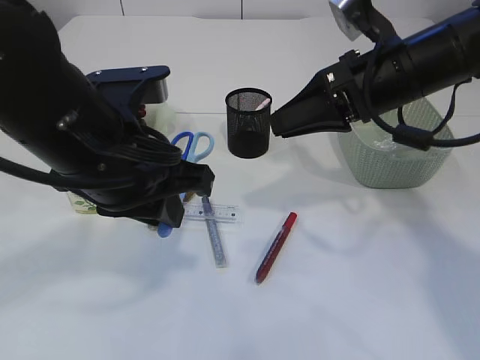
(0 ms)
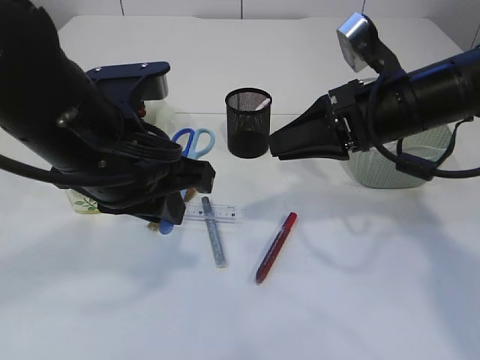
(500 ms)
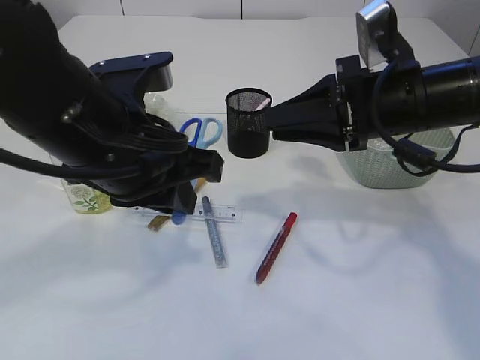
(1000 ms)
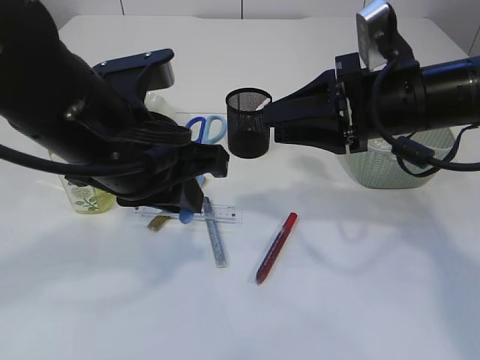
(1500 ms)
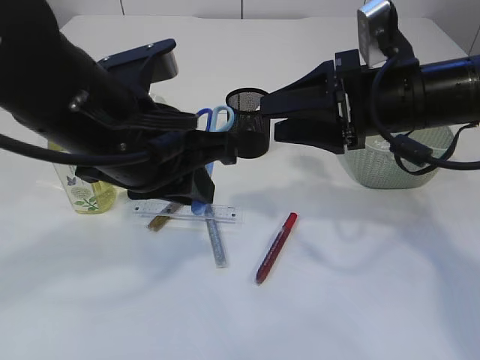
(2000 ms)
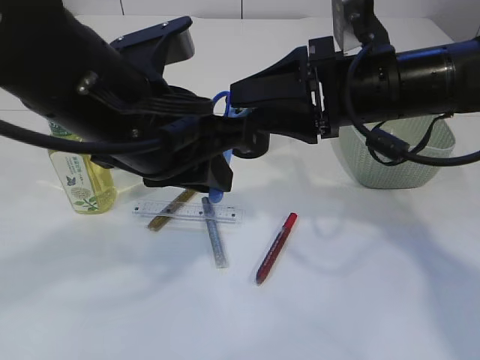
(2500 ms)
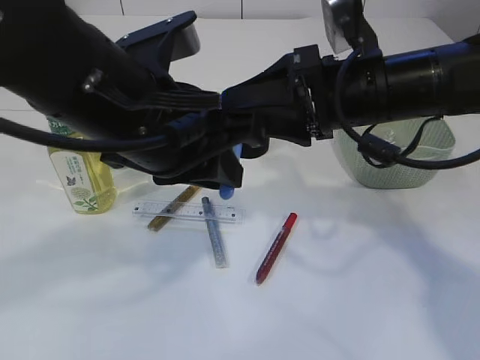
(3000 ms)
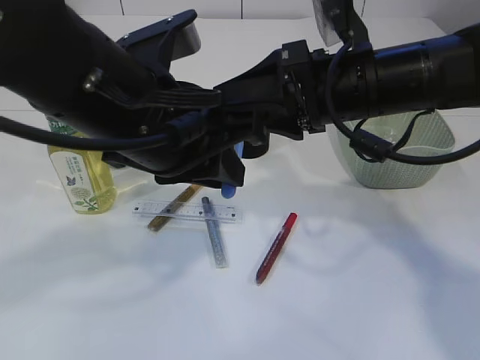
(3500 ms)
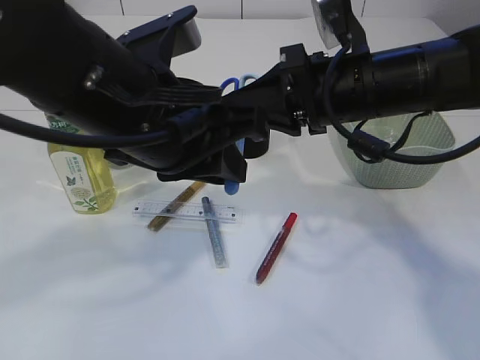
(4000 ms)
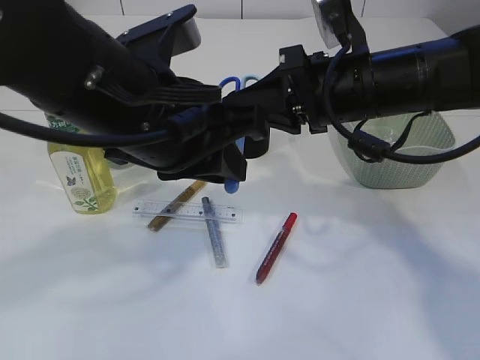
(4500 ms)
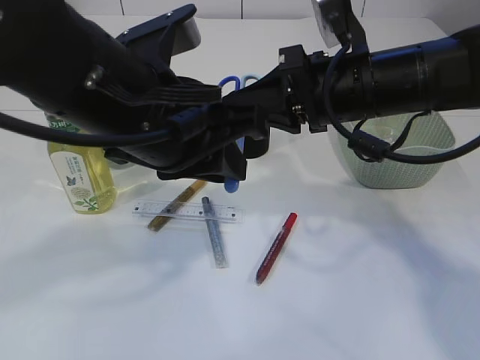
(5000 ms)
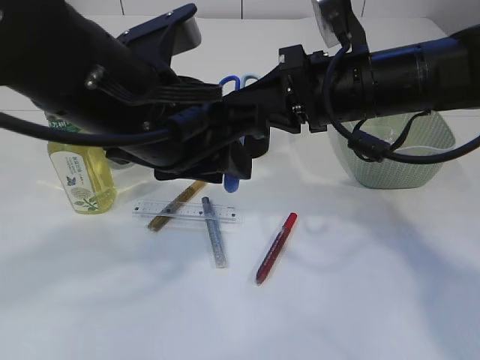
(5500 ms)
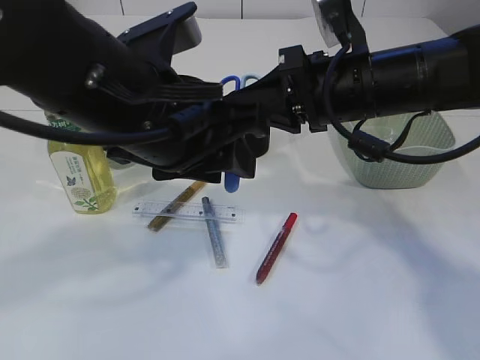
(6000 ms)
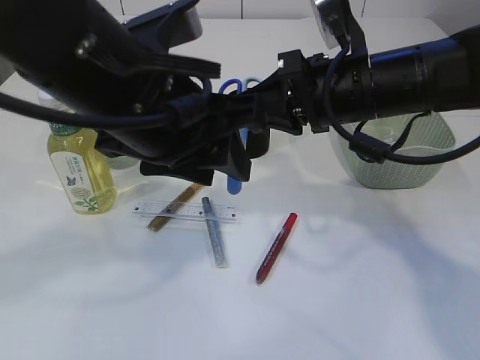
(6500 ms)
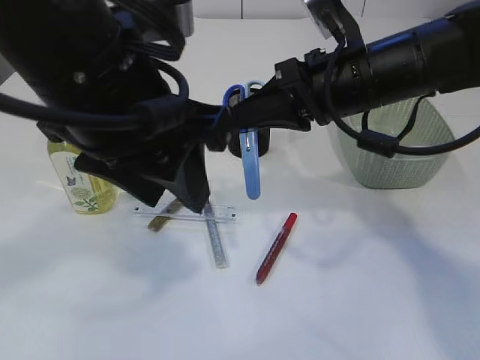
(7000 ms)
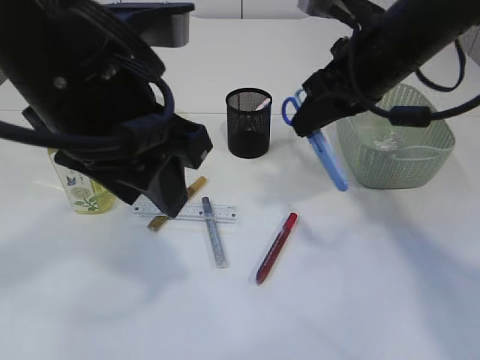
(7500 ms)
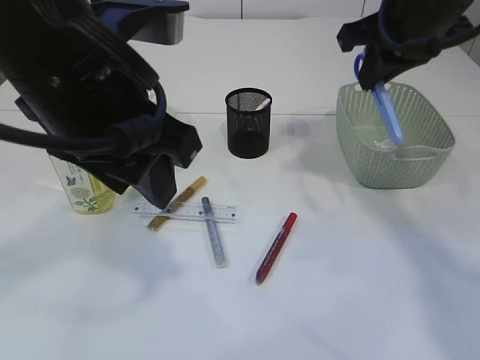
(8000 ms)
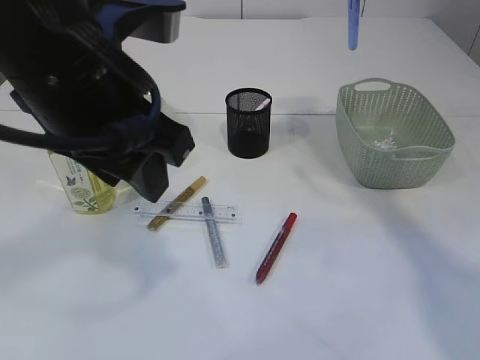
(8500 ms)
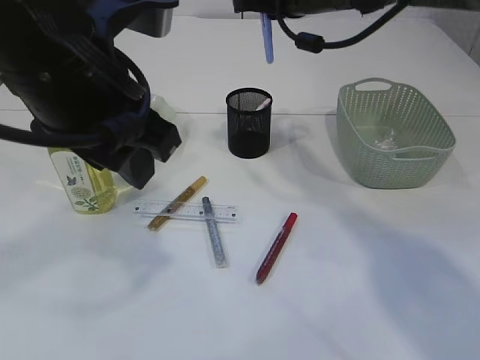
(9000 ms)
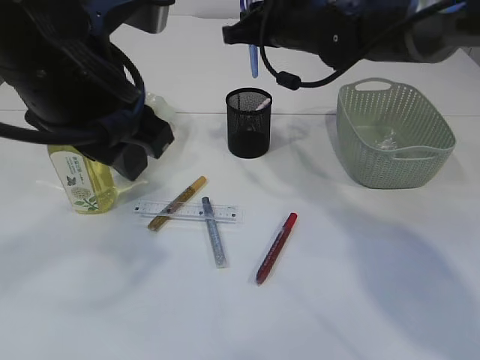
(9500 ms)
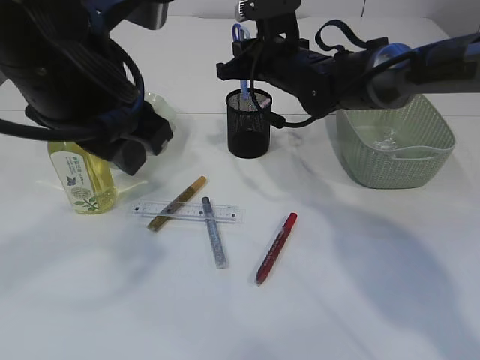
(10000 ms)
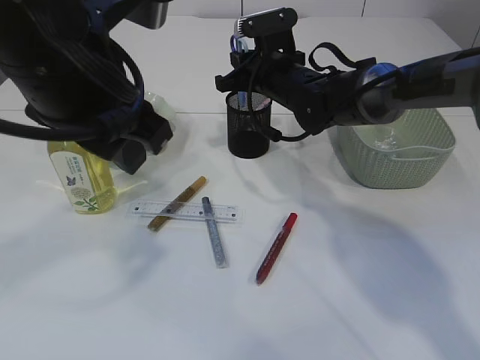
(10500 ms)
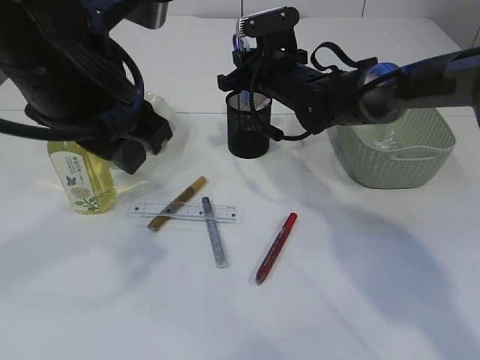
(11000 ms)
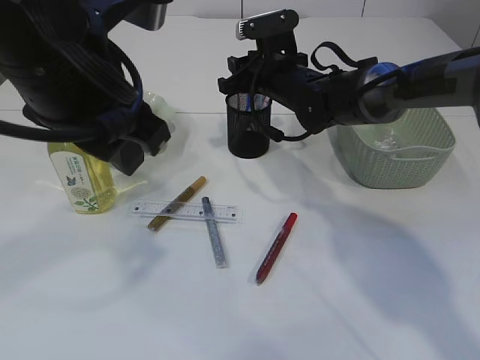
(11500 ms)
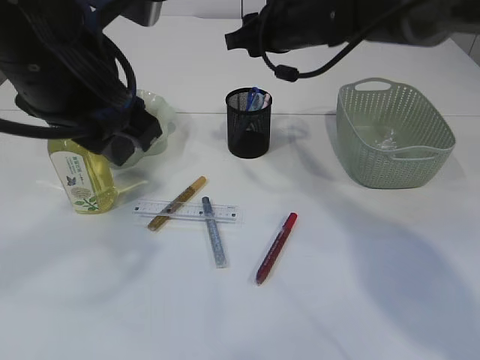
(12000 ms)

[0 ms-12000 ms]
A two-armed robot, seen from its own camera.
Step, 0 ms to 7000 ms: Hand over the blue scissors.
Step, 7500 ms to 11500 ms: Place the blue scissors into the pen holder.
0 ms to 2000 ms: The right gripper opens up.
2000 ms to 4000 ms: The right gripper closes up.
4000 ms to 6000 ms: Both grippers stay put.
6000 ms to 8000 ms: The left gripper shifts by about 5 cm, while the right gripper travels upward and to the right by approximately 10 cm.
8000 ms to 10000 ms: The right gripper is displaced forward, downward and to the left by approximately 20 cm.
10000 ms to 12000 ms: The right gripper moves upward, about 5 cm, and opens its fingers.

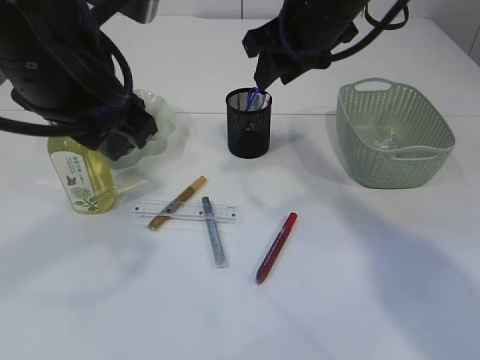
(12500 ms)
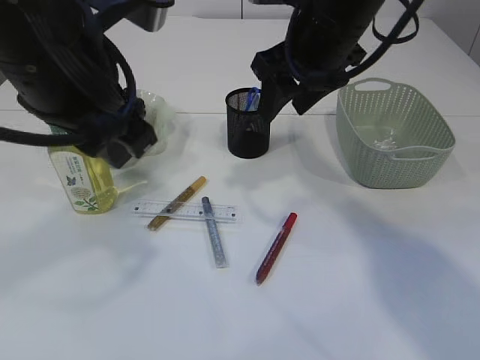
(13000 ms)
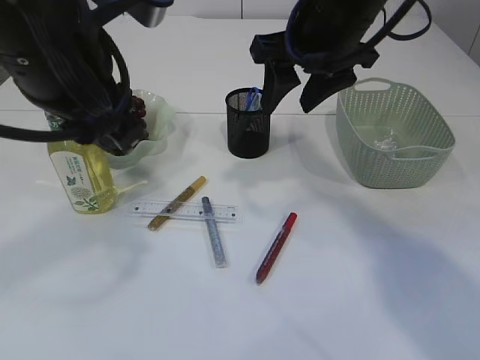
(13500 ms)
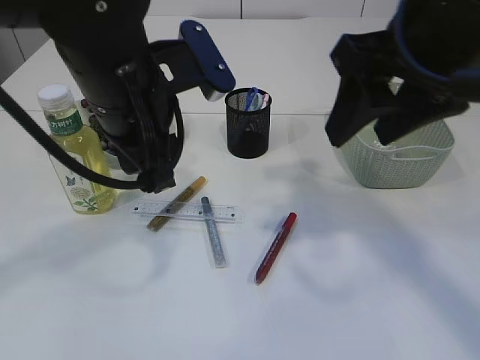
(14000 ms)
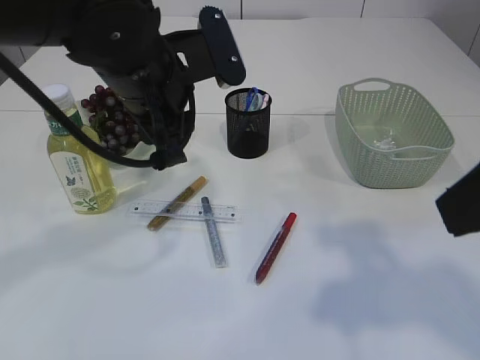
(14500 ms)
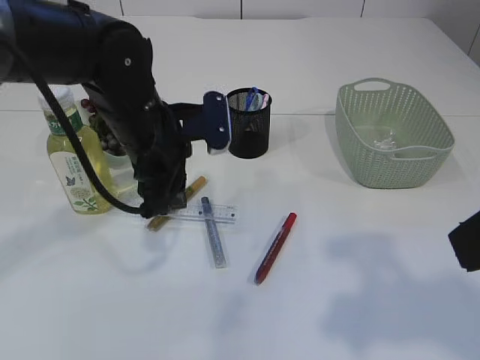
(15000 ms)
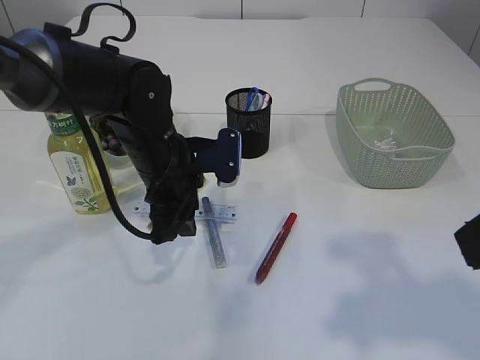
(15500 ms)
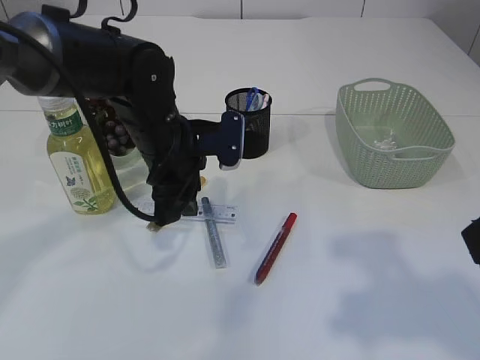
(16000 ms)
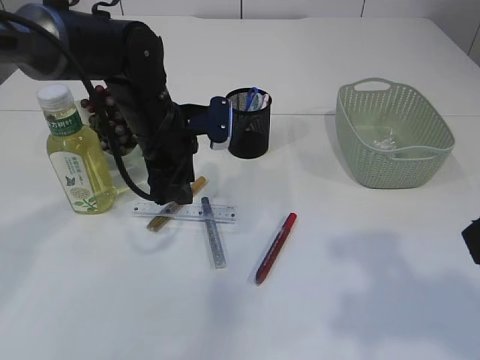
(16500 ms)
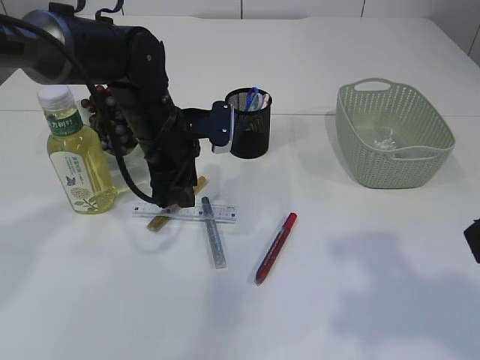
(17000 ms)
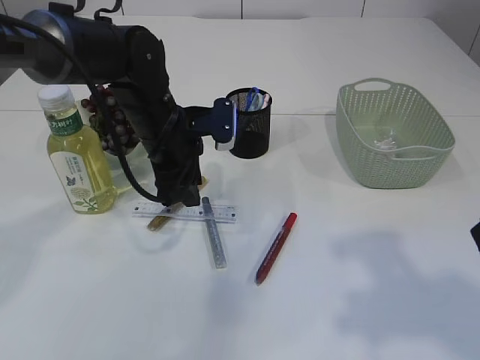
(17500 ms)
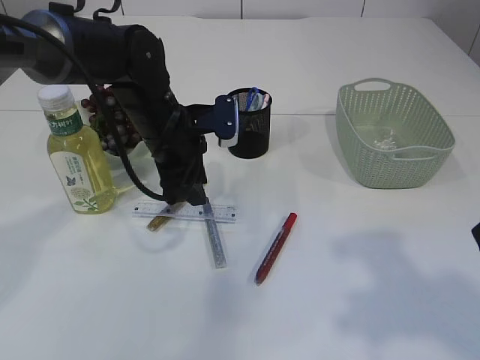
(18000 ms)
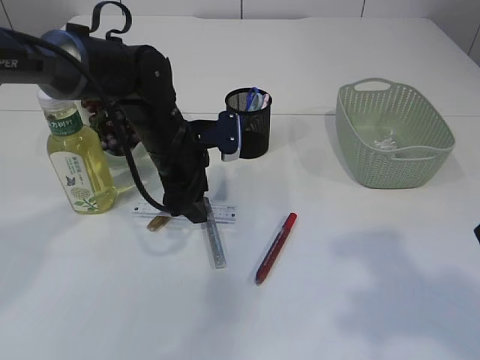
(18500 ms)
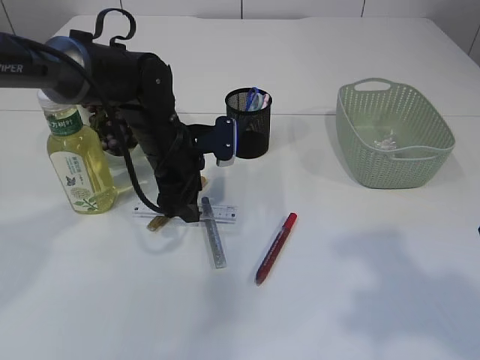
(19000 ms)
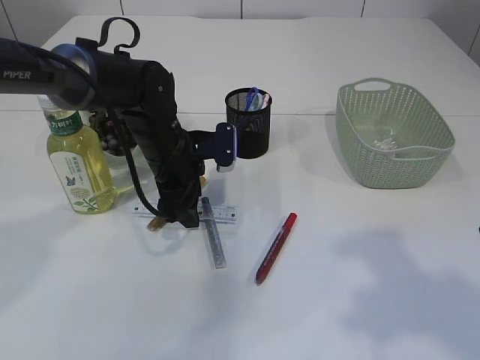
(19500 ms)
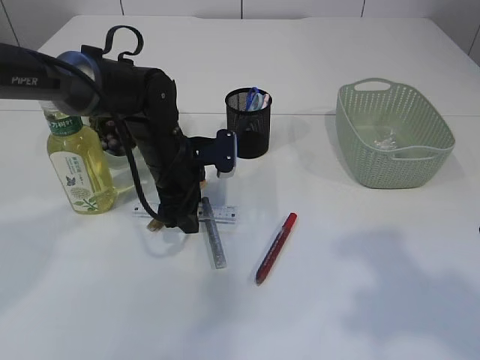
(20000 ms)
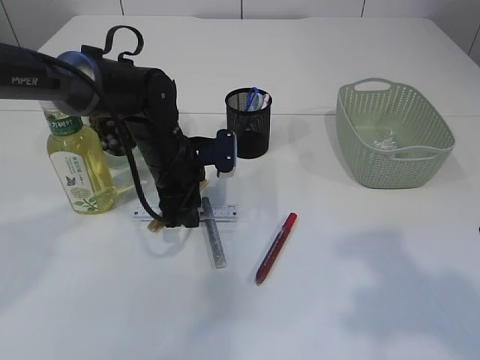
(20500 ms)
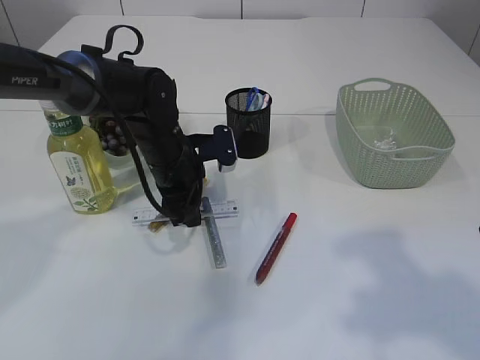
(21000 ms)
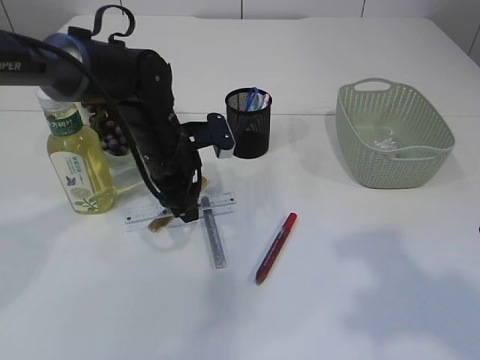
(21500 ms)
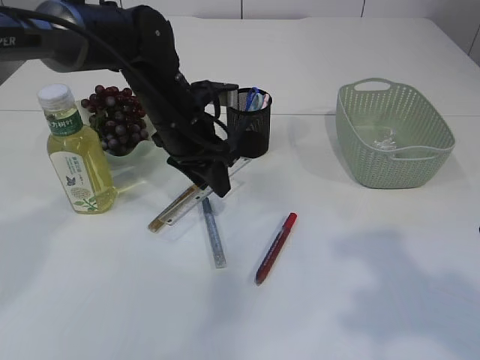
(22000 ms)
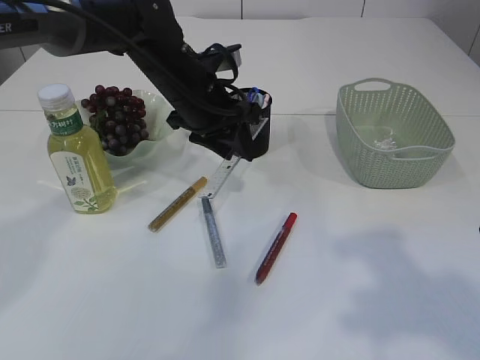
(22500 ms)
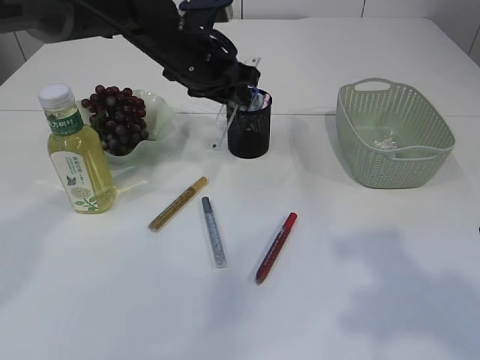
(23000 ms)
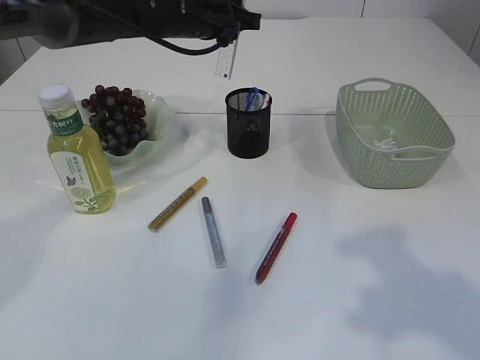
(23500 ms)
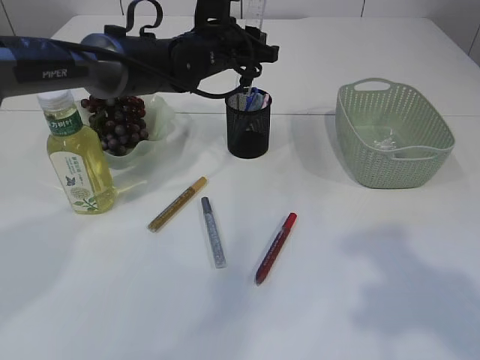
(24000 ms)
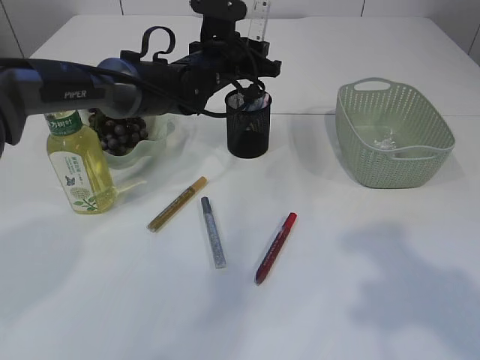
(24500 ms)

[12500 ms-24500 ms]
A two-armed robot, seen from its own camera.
Step, 12500 ms to 21500 ms: pick up the ruler.
12500 ms to 14500 ms: The right gripper travels backward by roughly 25 cm, while the left gripper shifts some 10 cm forward and downward.
14500 ms to 16500 ms: The left gripper is displaced downward and forward by approximately 15 cm.
16500 ms to 18500 ms: The grippers make only small movements.
18500 ms to 20500 ms: The left gripper closes its fingers.
20500 ms to 22500 ms: The left gripper travels upward by roughly 10 cm.
22500 ms to 24500 ms: The left gripper moves forward, some 10 cm, and travels upward and back again, roughly 5 cm each way.

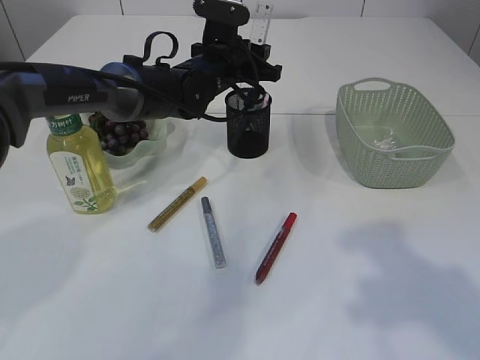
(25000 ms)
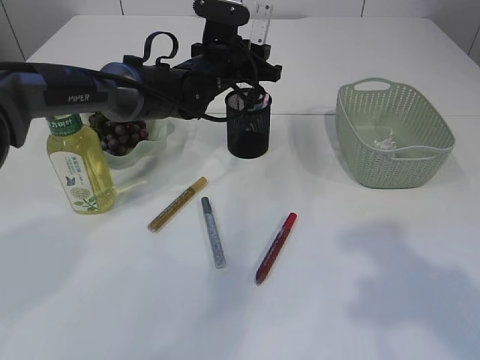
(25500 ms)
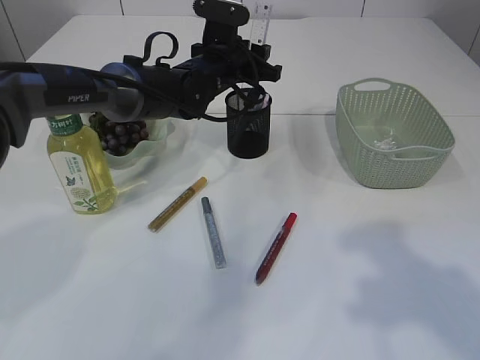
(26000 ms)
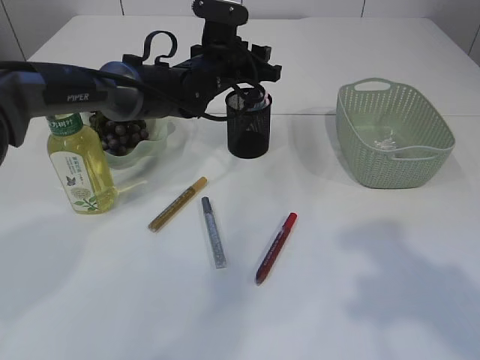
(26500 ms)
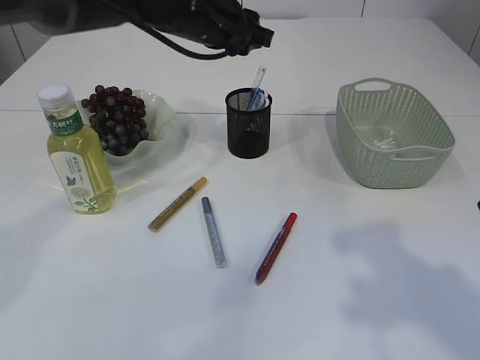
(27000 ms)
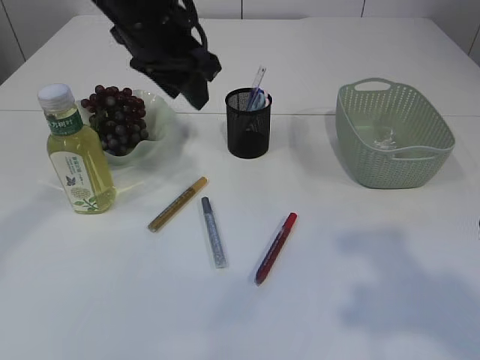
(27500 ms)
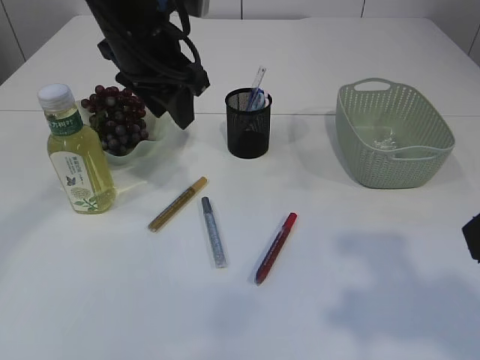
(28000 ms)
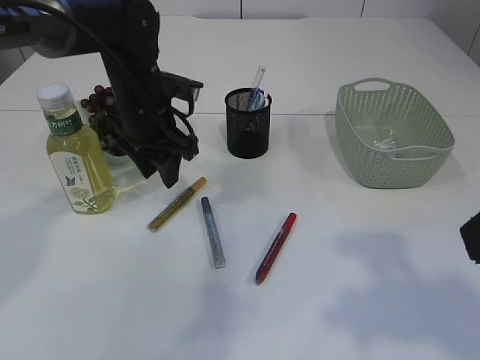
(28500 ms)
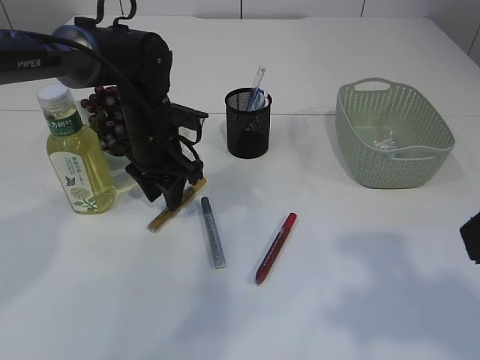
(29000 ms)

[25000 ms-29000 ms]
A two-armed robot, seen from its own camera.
25000 ms to 27000 ms: The left gripper is displaced upward by approximately 10 cm.
27000 ms to 29000 ms: The left gripper moves downward and to the left, roughly 15 cm.
